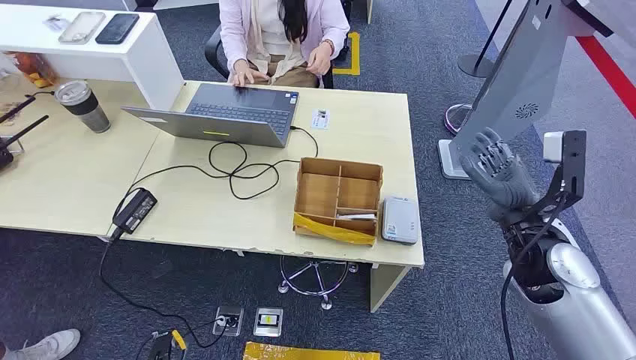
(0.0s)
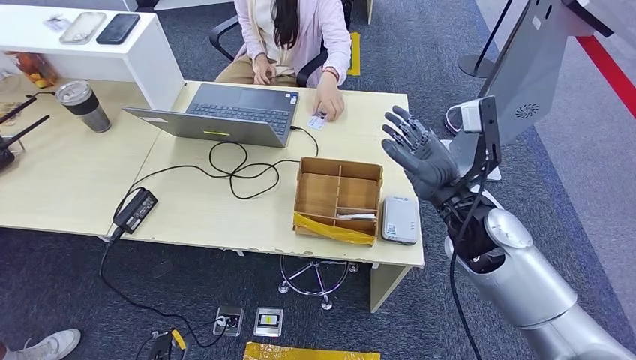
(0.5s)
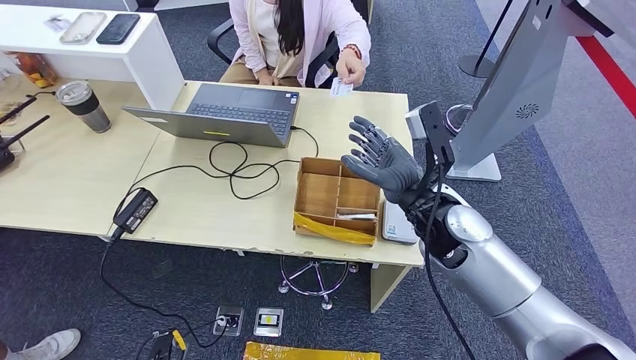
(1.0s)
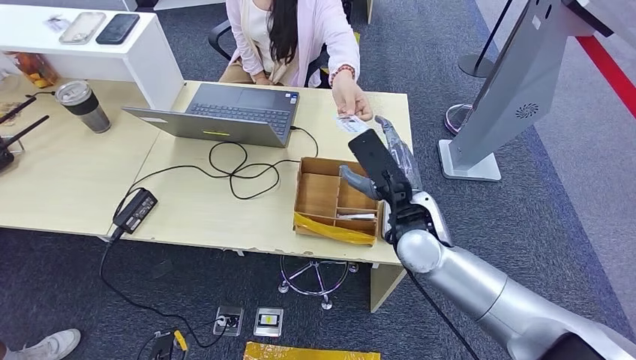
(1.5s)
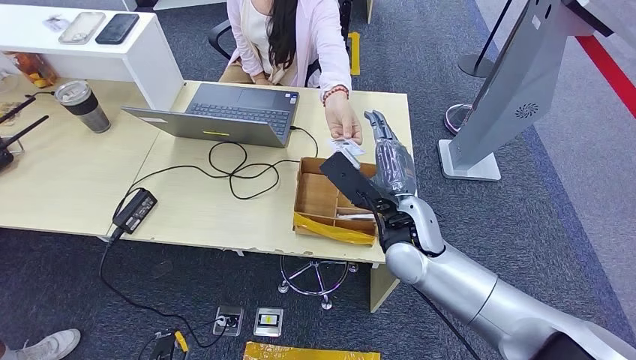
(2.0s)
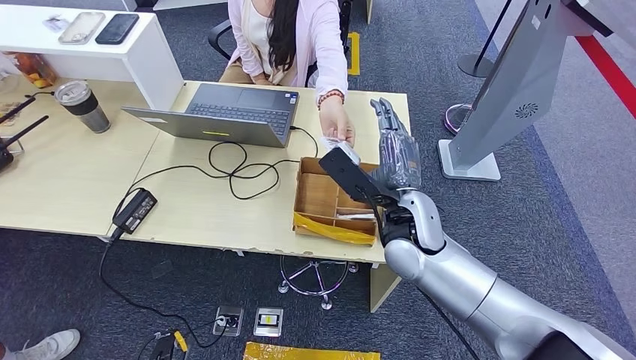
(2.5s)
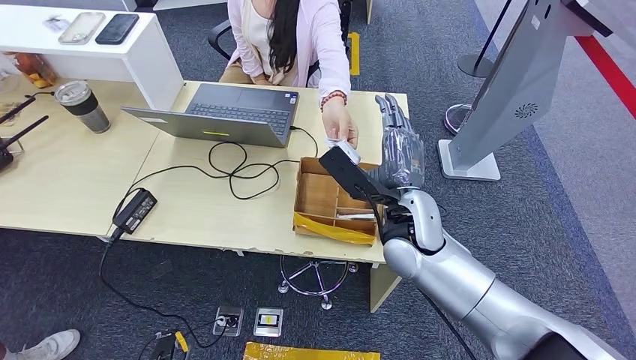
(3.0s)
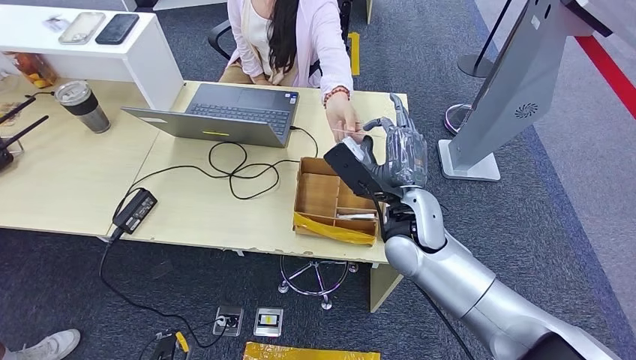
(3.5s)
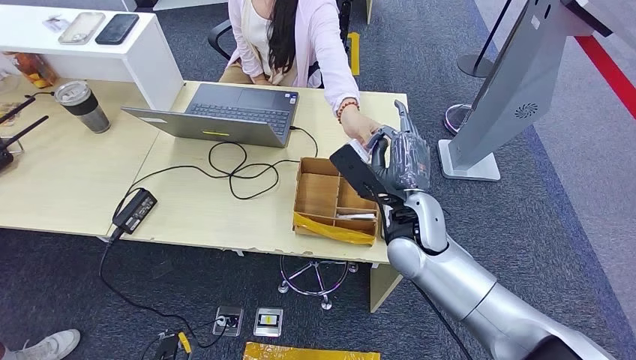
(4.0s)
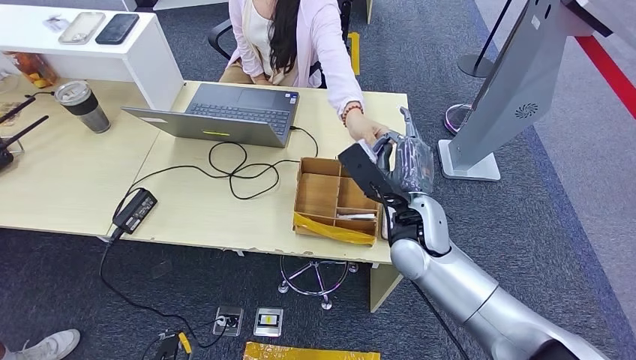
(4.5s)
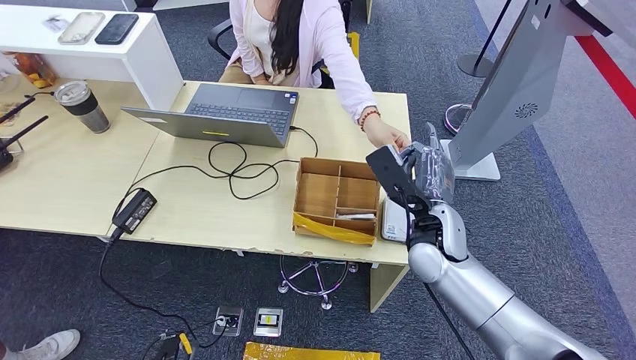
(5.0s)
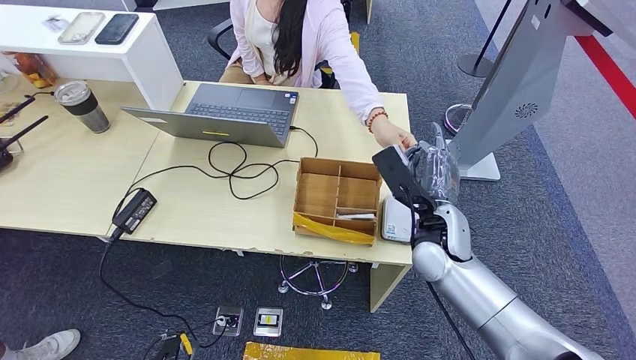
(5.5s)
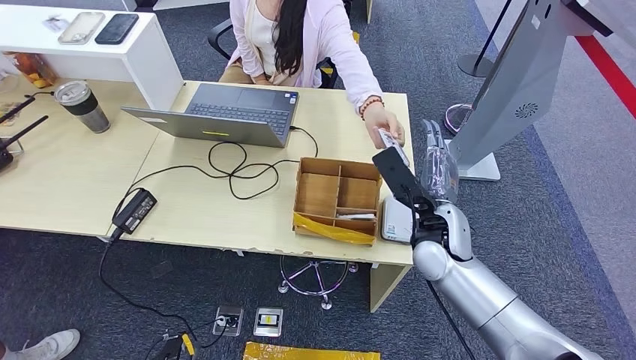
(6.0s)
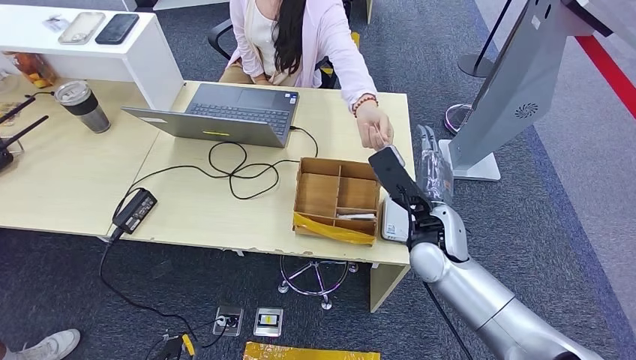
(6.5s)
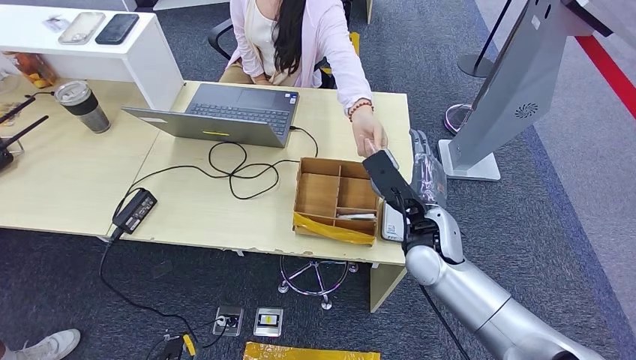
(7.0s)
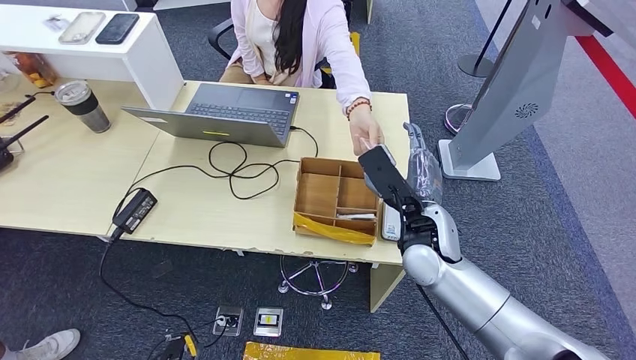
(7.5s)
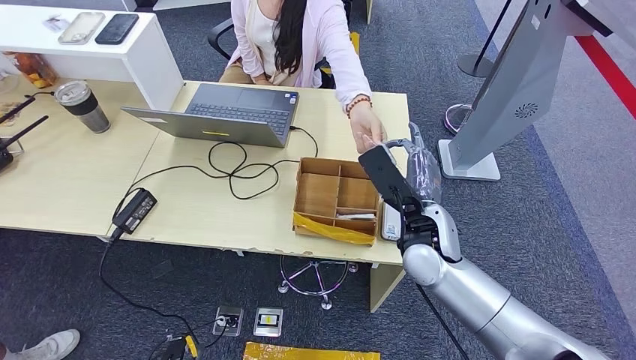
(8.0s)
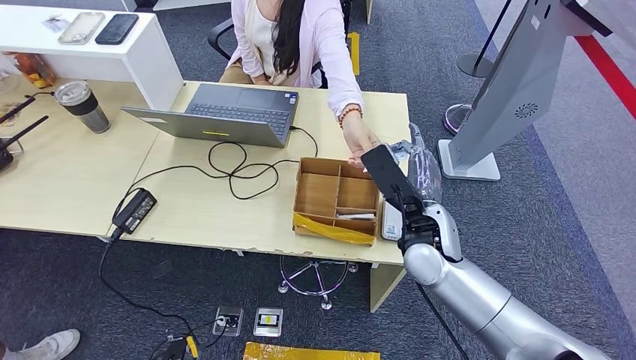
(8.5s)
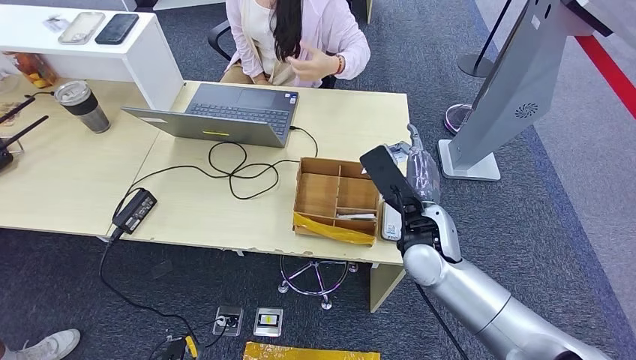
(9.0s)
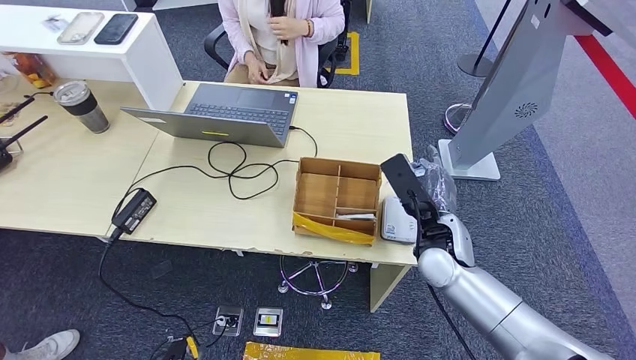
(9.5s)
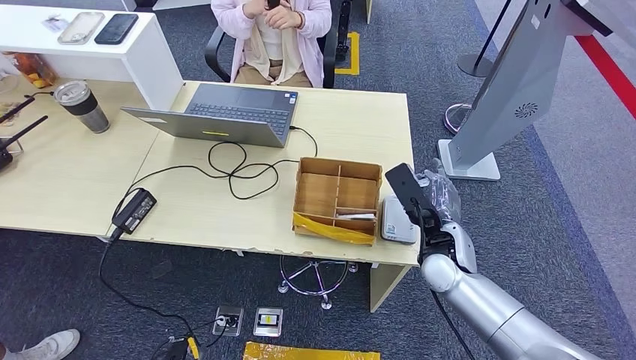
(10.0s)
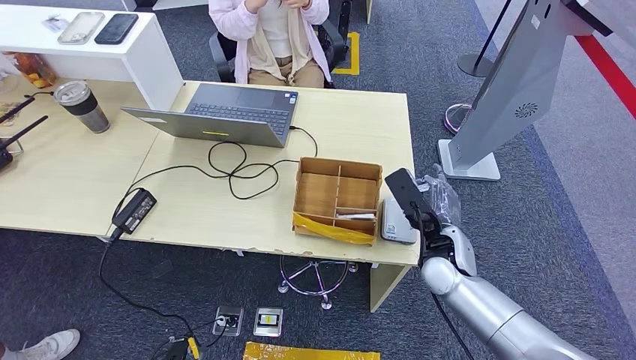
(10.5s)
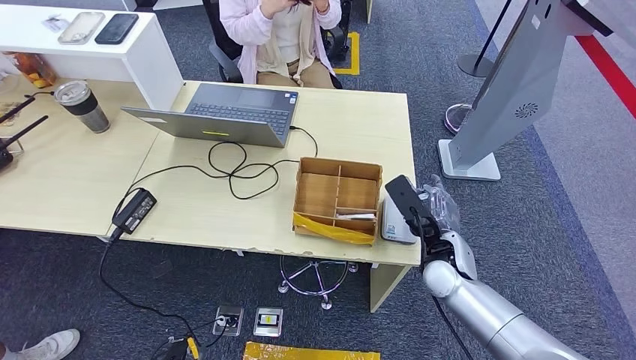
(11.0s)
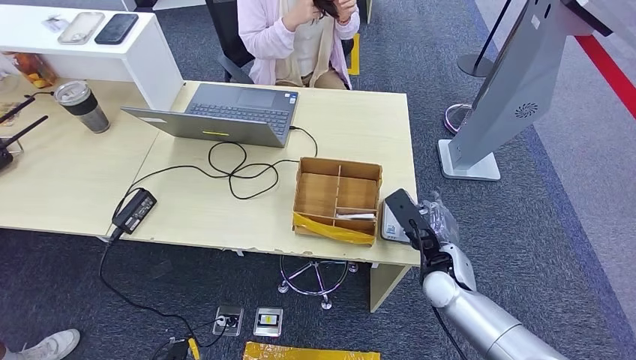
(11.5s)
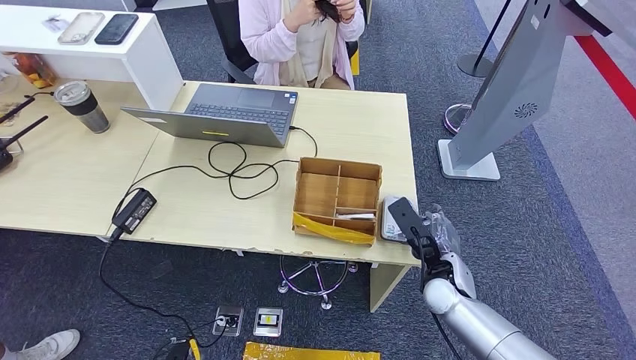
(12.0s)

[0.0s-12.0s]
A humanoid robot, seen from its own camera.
Step, 0.0s to 9.5s: Take the ID card from the person's hand.
Step, 10.0s to 11.5s: Place the ID card on the card reader.
2.0s to 4.0s: The hands make only small movements.
4.0s to 6.0s: The right hand travels to the right by roughly 5 cm.
6.0s to 8.0s: The hands stay close to where they were, moving slightly.
8.0s to 10.0s: The right hand heads to the right, covering approximately 5 cm.
10.0s to 12.0s: The right hand shifts some 5 cm downward.

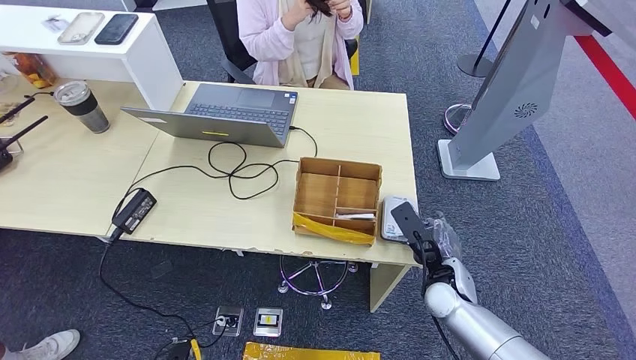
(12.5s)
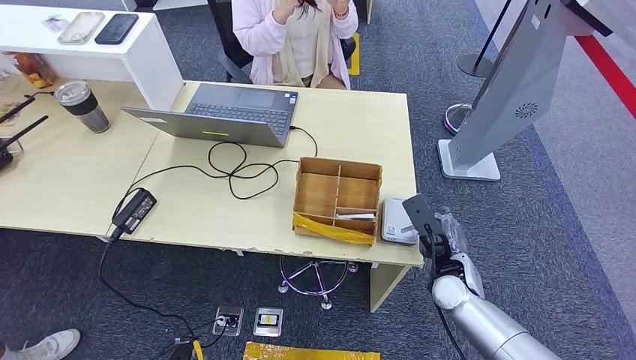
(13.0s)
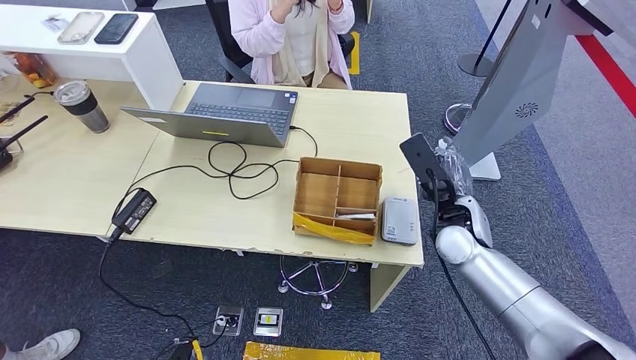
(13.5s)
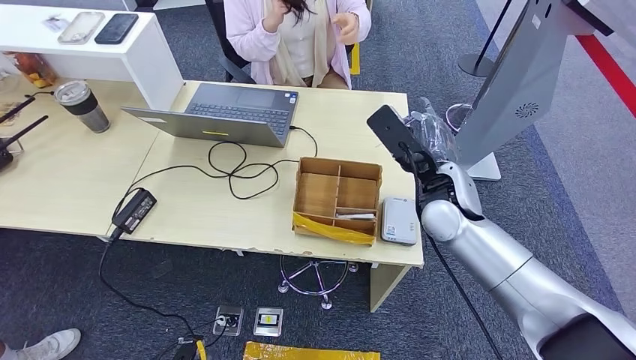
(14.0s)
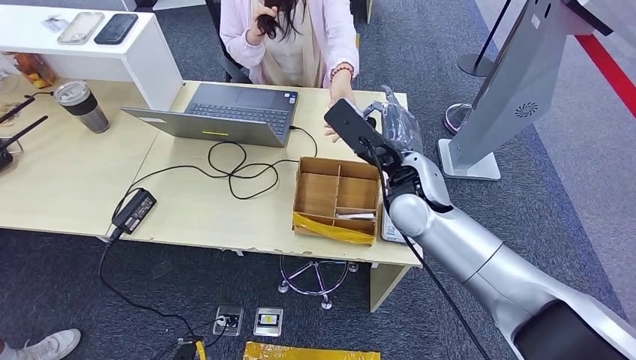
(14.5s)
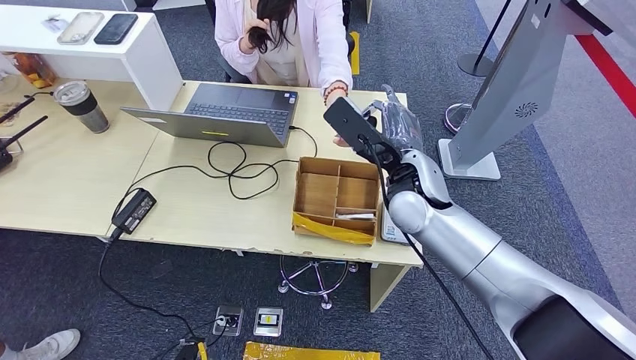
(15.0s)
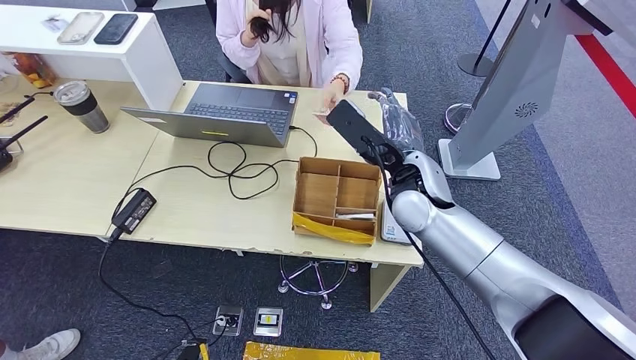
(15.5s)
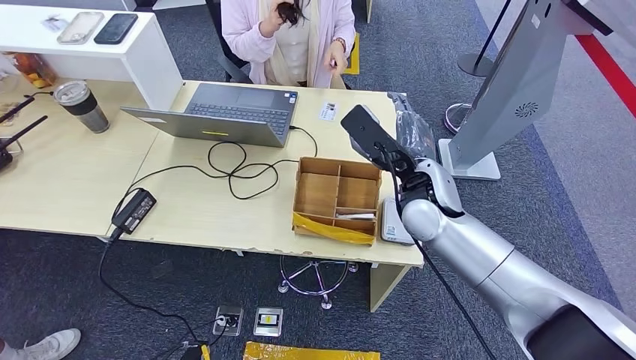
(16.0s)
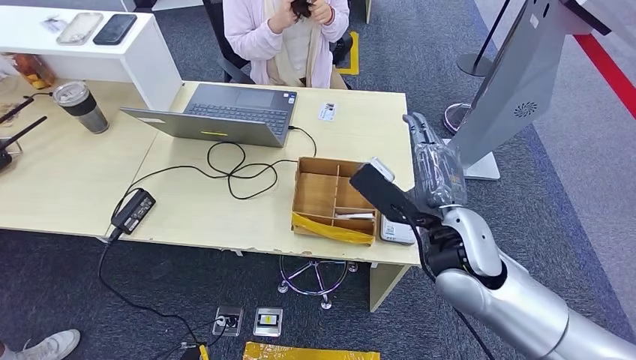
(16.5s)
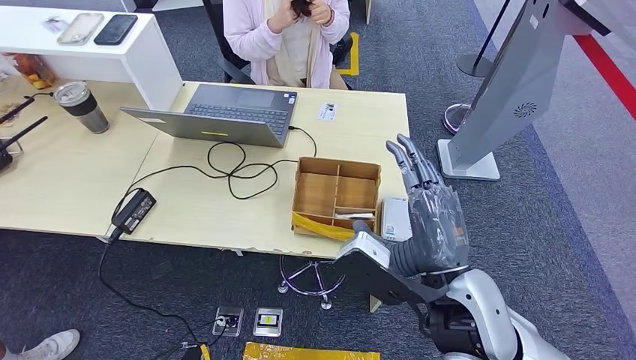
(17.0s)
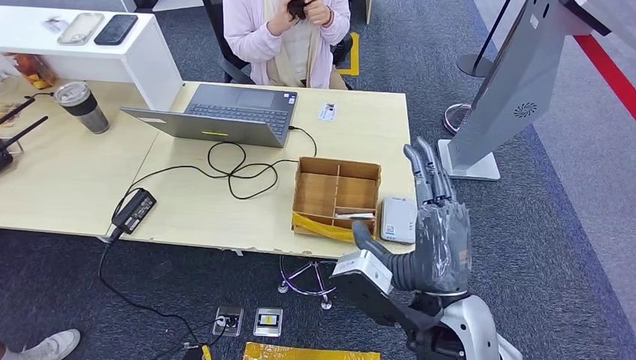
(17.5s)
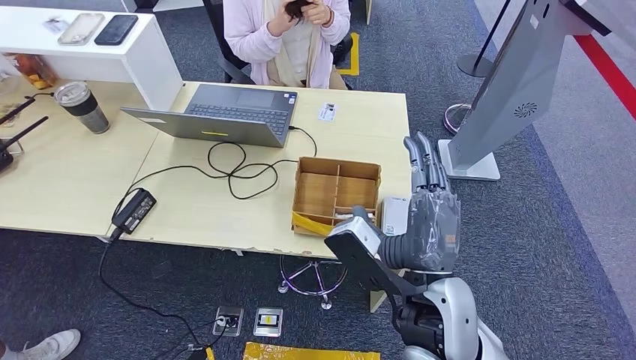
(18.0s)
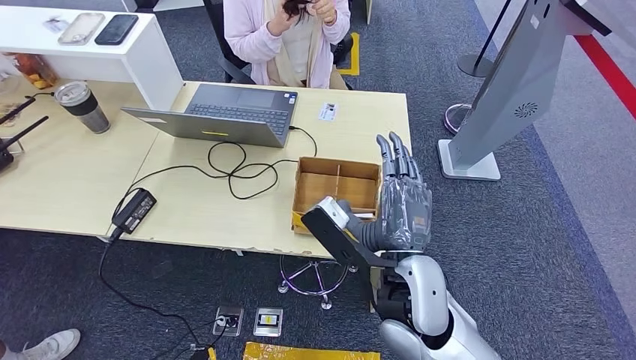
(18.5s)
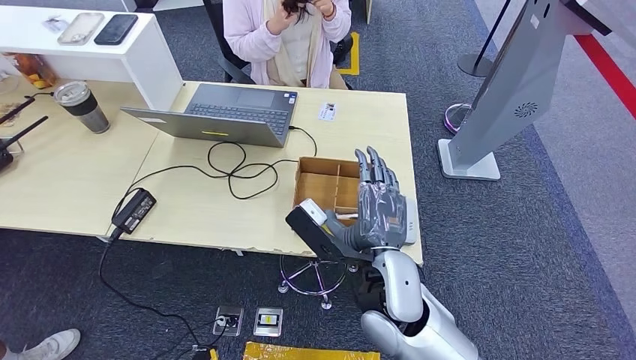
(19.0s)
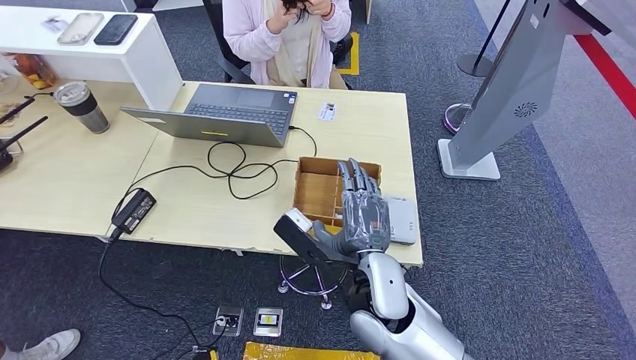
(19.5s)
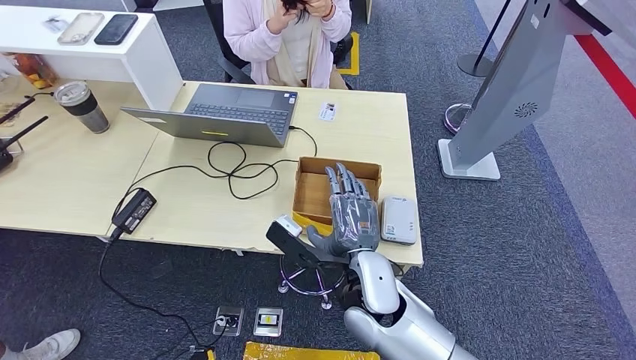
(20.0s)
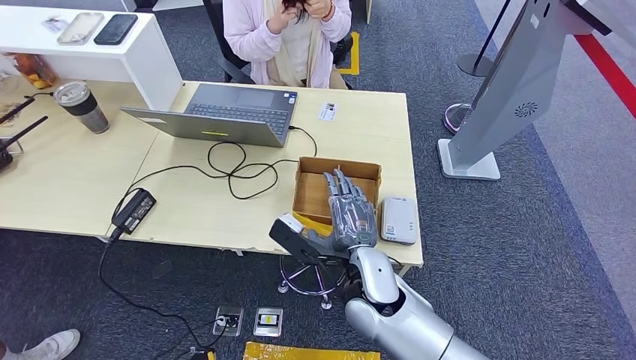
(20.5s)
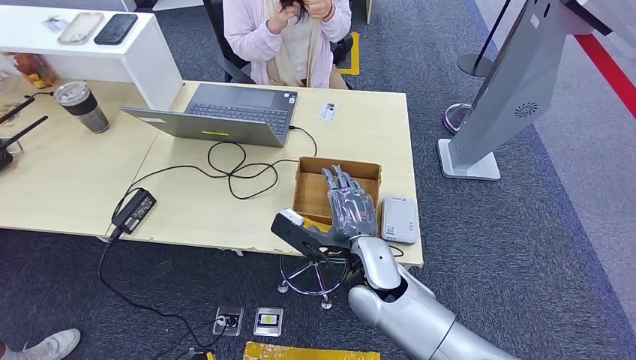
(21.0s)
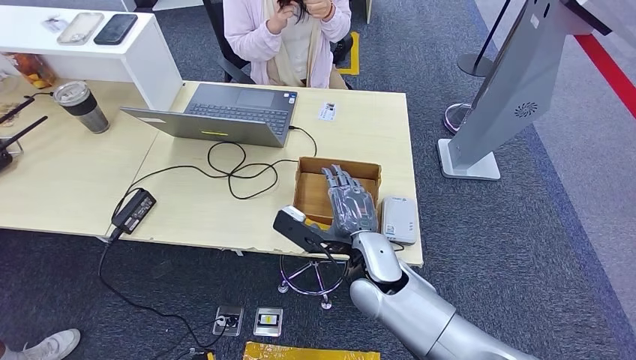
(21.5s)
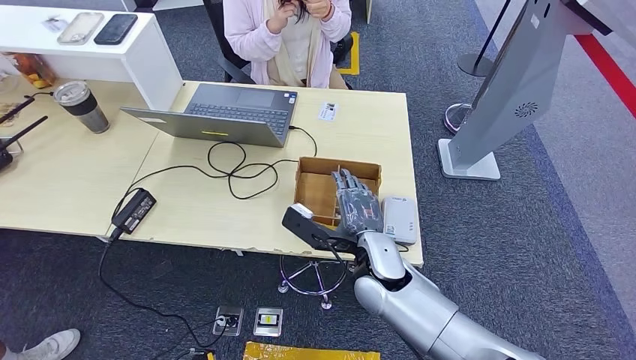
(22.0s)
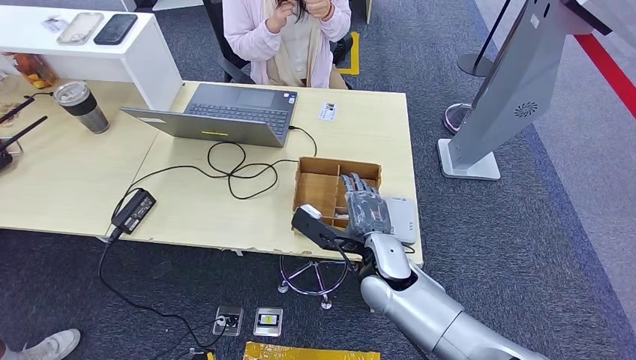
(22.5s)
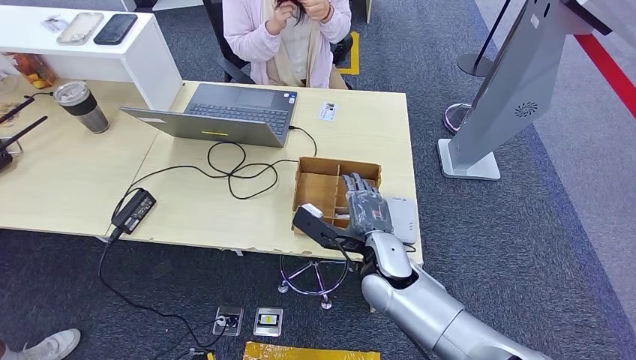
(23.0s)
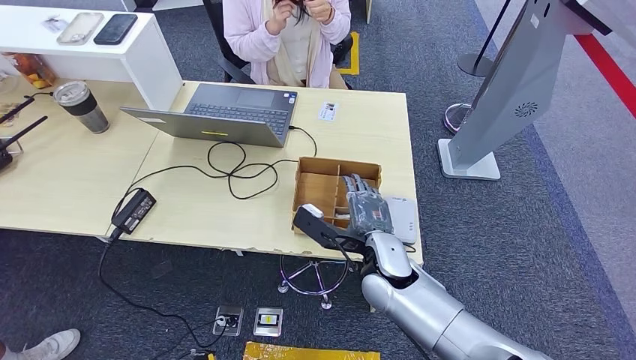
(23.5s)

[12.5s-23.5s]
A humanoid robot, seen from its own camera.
Step, 13.5s to 15.5s: Hand the ID card to the person.
12.5s to 14.5s: The right hand goes about 25 cm upward, forward and to the left.
14.5s to 16.0s: The hands make only small movements.
16.0s to 18.0s: The right hand heads backward and to the left, covering some 20 cm.
18.0s to 20.0s: The right hand heads downward, covering about 5 cm.
20.0s to 21.5s: The right hand changes place by about 5 cm.
21.5s to 23.5s: The hands stay close to where they were, moving slightly.
